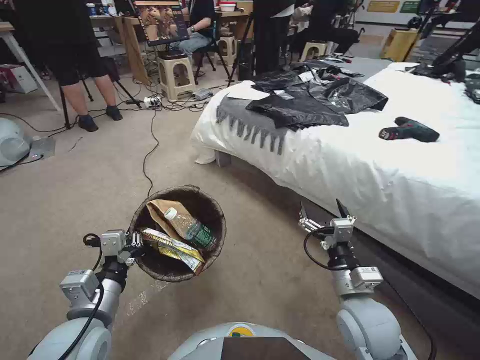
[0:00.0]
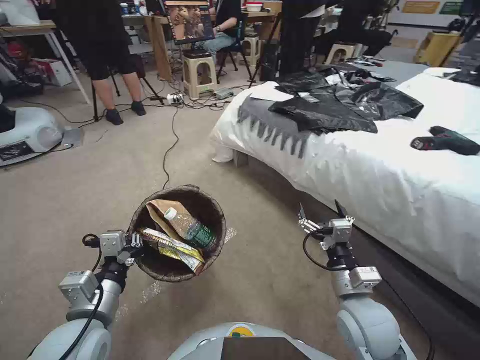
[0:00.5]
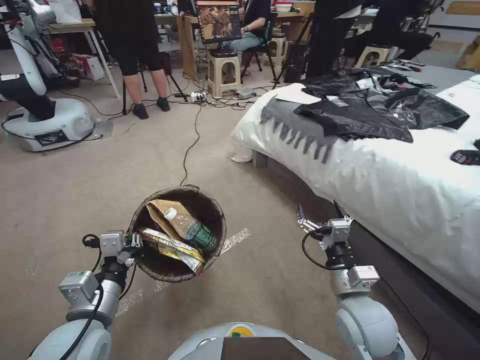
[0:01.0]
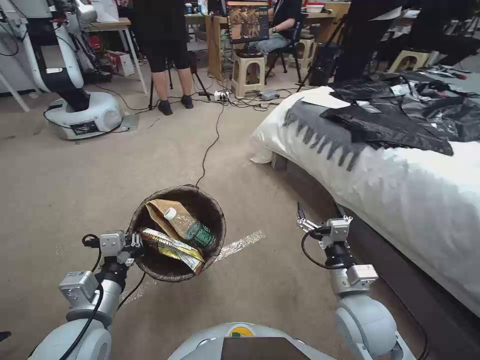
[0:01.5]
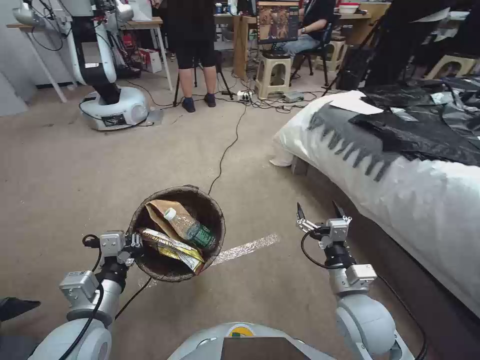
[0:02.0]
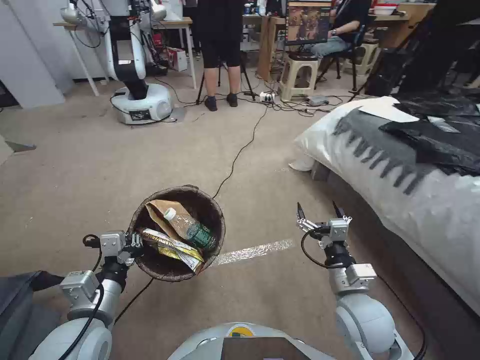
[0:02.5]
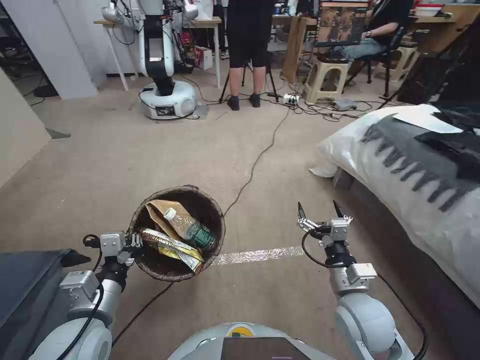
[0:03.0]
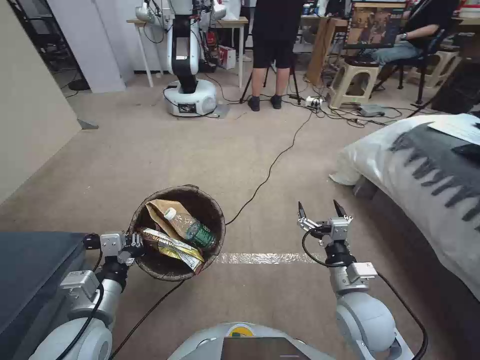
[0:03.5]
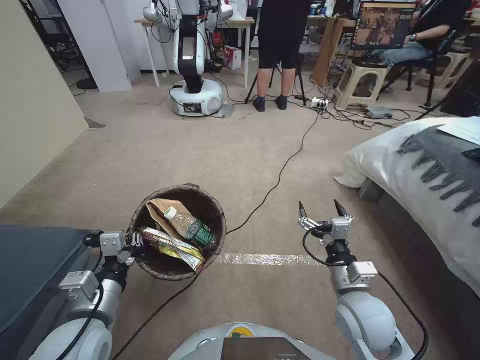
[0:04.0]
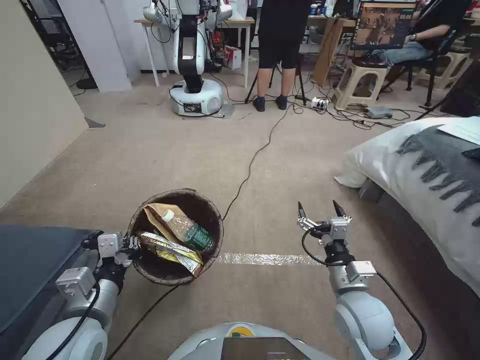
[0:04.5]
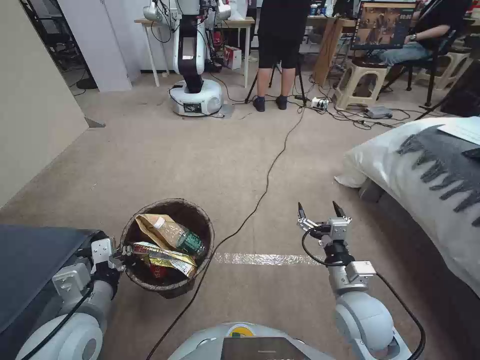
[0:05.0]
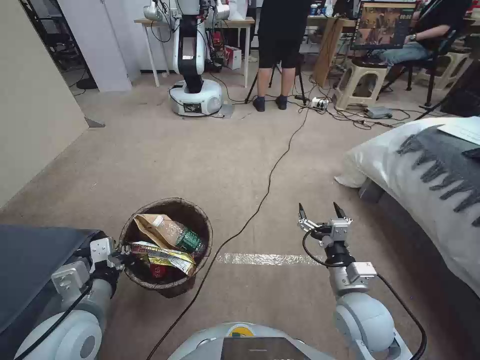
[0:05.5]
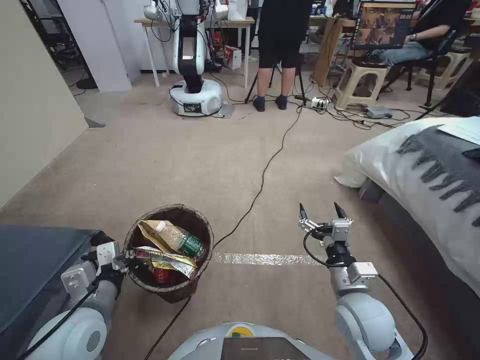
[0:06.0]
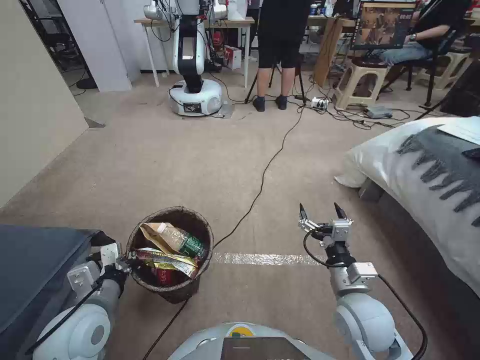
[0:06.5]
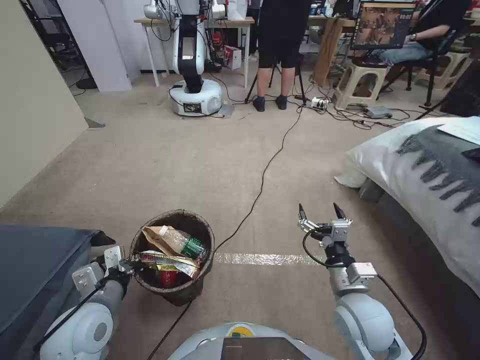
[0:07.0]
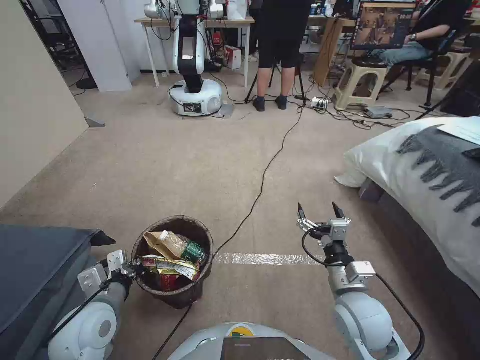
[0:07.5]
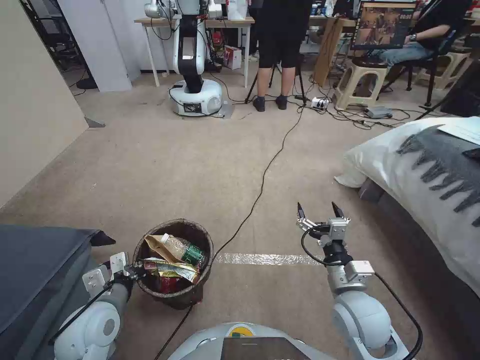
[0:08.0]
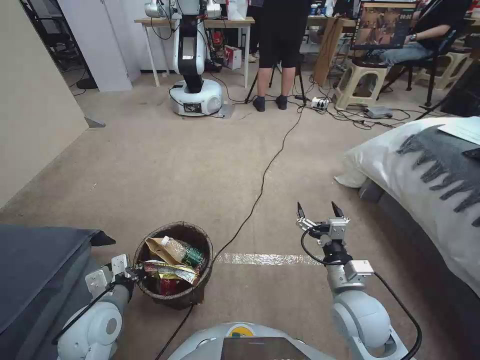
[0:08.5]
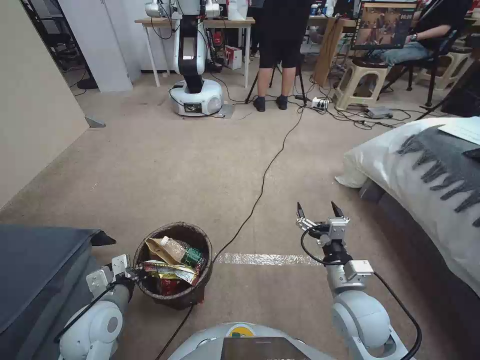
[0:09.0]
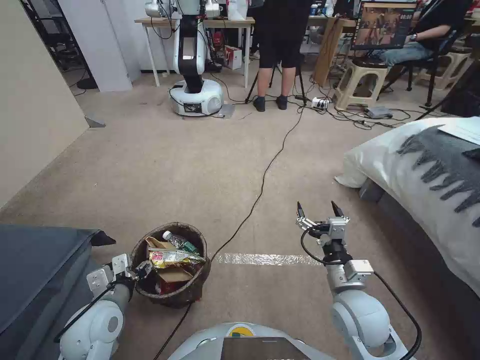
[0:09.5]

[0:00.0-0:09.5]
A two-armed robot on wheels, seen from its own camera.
Task of the whole recording: Pick up the trash bin, then pick up the garbage from the floor and place it into the trash bin.
0:04.0 to 0:05.5: The grippers stay close to where they were, moving slightly.
0:05.5 to 0:07.5: The left gripper is displaced downward by approximately 5 cm.
0:07.5 to 0:09.5: The left gripper opens up.

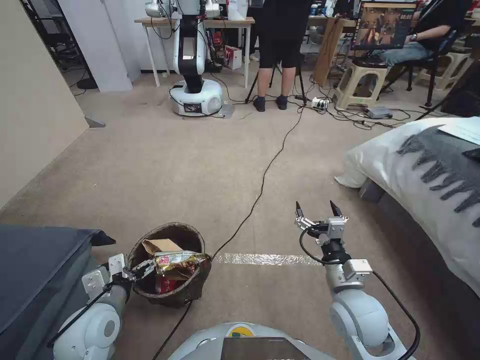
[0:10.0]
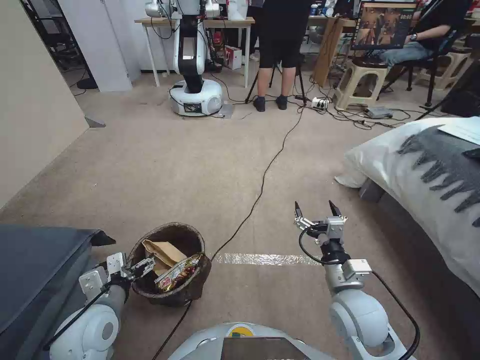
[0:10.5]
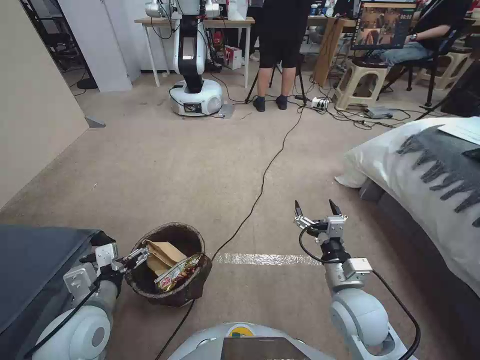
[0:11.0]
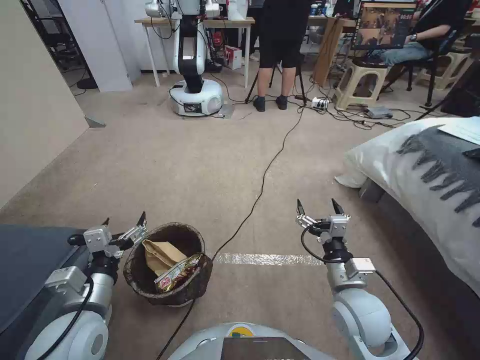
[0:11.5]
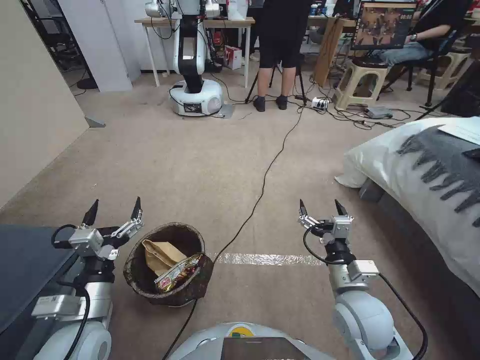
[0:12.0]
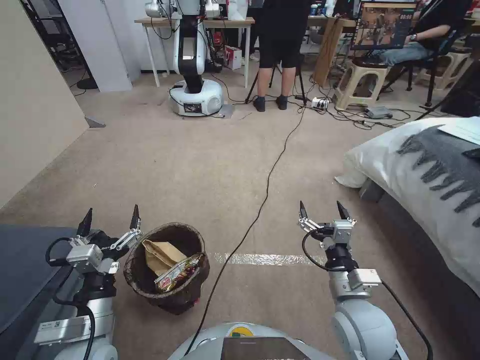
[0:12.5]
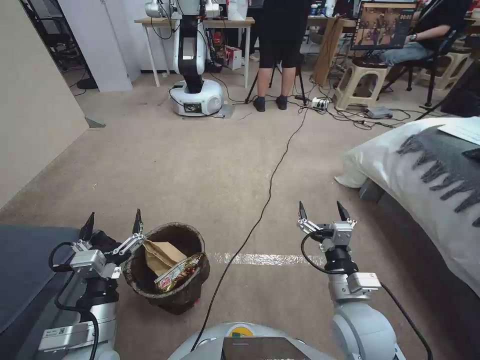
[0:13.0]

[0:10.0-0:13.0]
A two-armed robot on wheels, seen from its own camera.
Task of the whole recording: Pick up the trash bin, then pick up the garbage from the floor and place it into the trash bin.
0:10.0 to 0:11.5: The left gripper moves upward, some 5 cm.
0:11.5 to 0:13.0: The left gripper moves about 5 cm.
